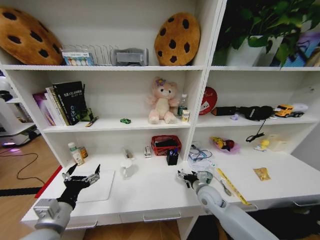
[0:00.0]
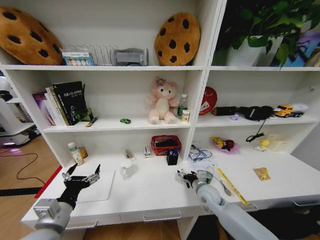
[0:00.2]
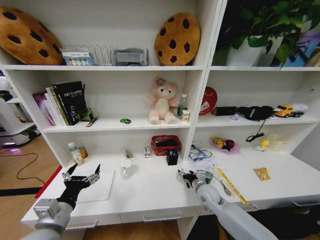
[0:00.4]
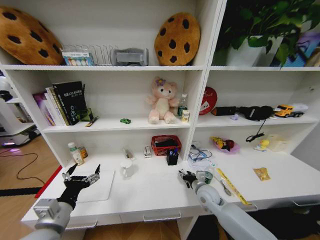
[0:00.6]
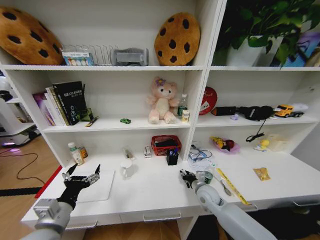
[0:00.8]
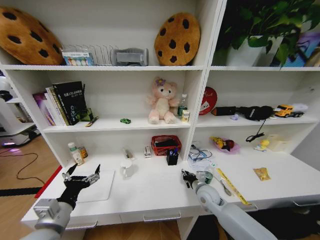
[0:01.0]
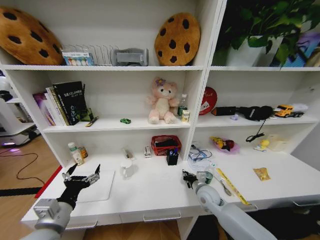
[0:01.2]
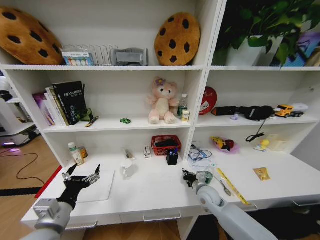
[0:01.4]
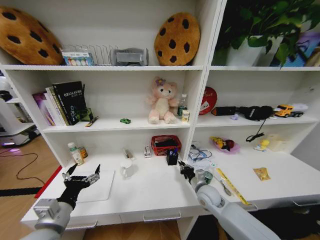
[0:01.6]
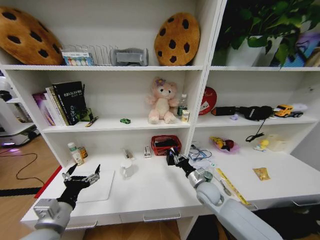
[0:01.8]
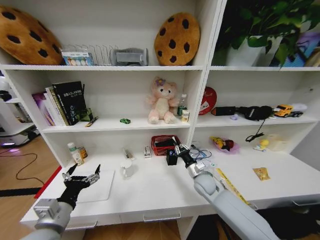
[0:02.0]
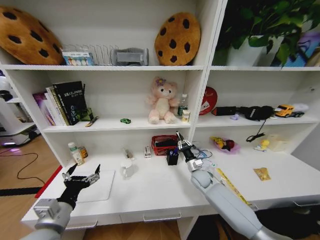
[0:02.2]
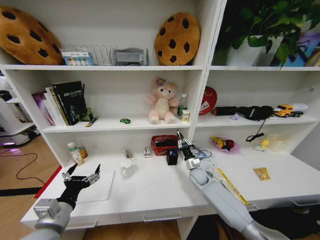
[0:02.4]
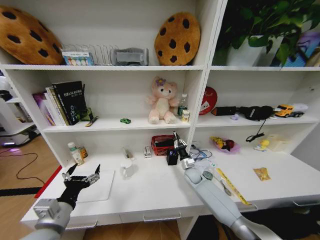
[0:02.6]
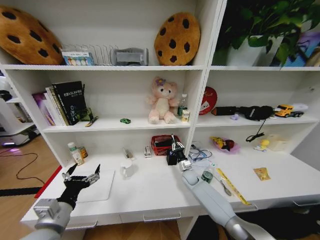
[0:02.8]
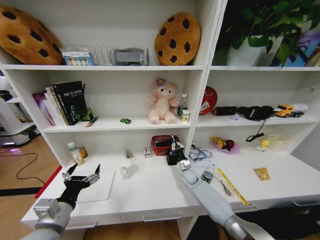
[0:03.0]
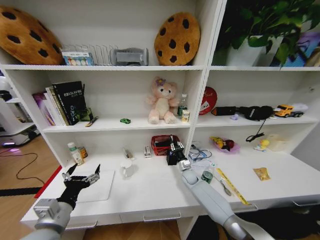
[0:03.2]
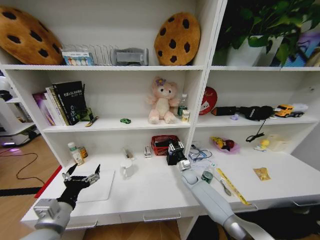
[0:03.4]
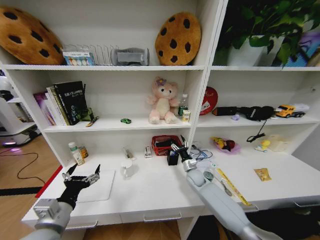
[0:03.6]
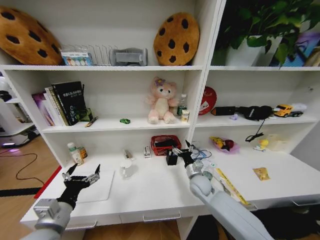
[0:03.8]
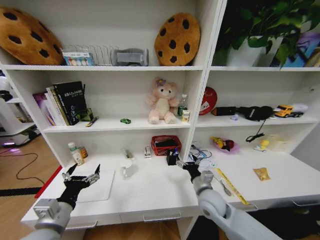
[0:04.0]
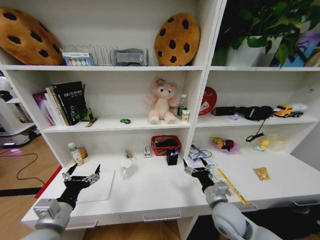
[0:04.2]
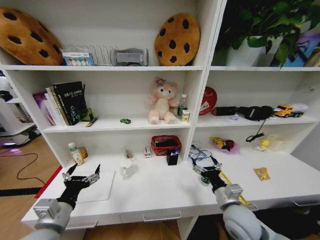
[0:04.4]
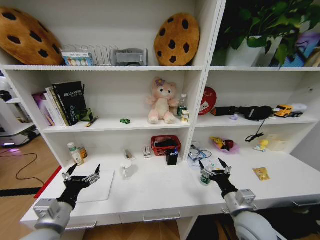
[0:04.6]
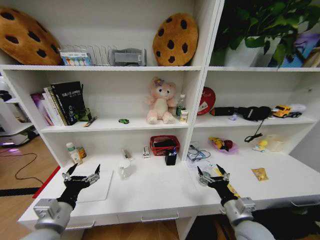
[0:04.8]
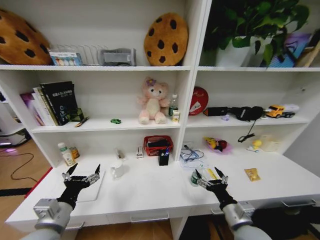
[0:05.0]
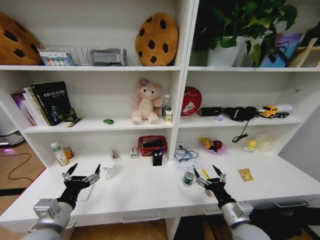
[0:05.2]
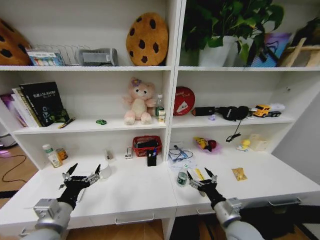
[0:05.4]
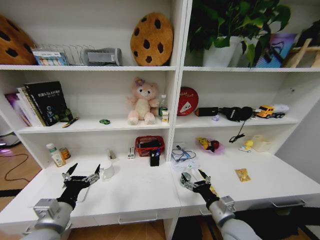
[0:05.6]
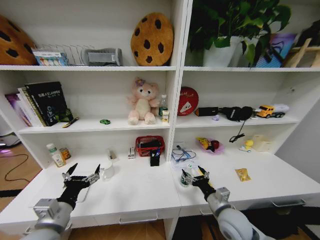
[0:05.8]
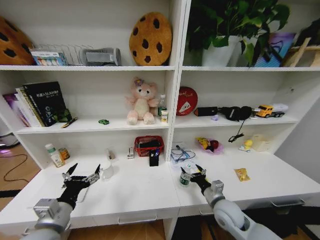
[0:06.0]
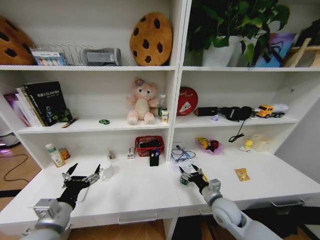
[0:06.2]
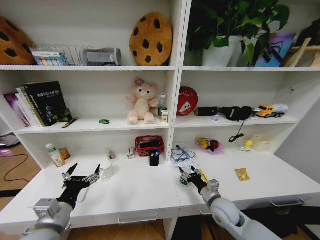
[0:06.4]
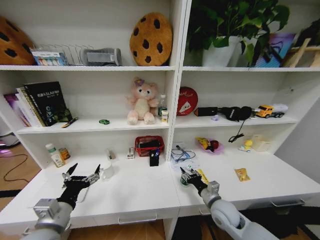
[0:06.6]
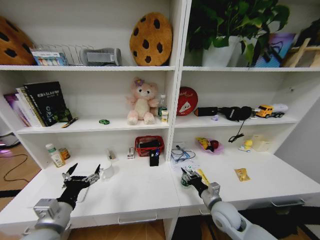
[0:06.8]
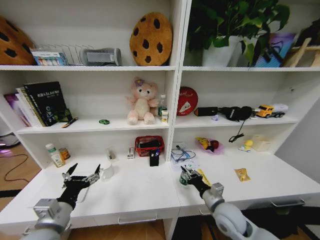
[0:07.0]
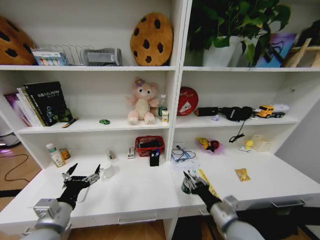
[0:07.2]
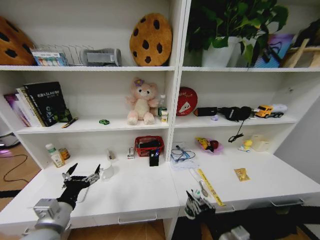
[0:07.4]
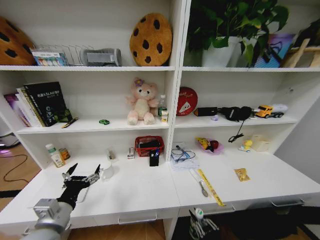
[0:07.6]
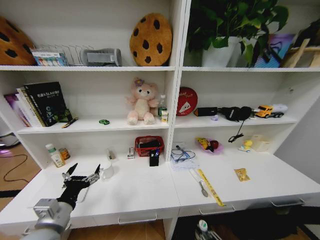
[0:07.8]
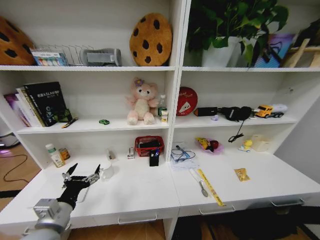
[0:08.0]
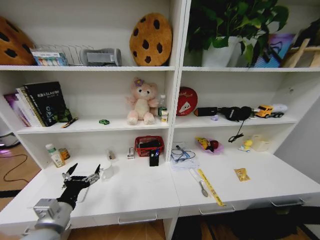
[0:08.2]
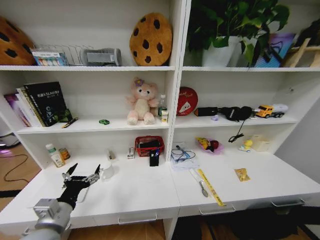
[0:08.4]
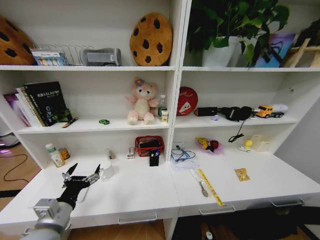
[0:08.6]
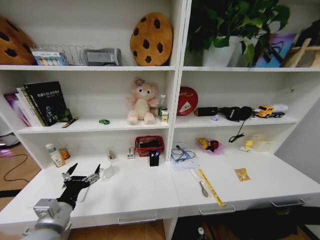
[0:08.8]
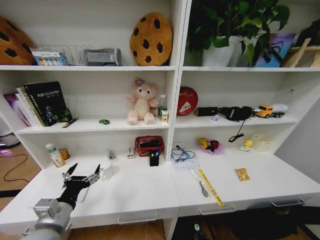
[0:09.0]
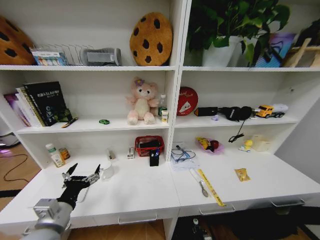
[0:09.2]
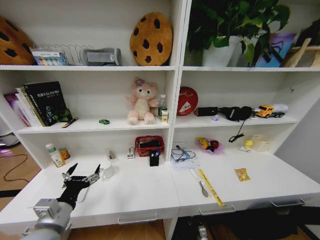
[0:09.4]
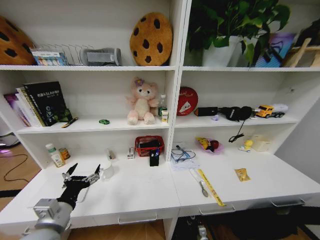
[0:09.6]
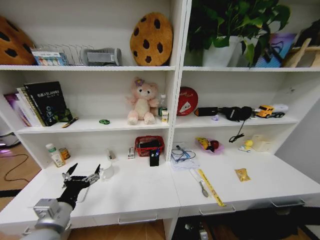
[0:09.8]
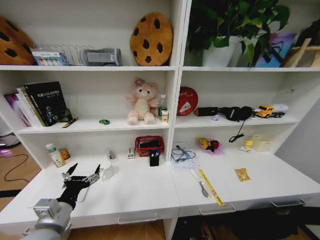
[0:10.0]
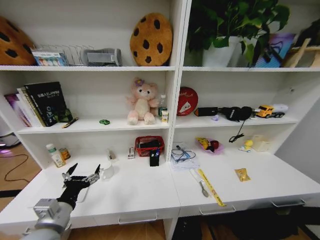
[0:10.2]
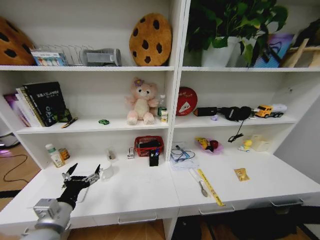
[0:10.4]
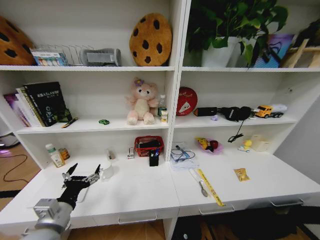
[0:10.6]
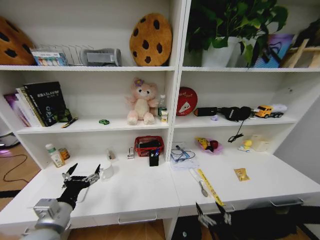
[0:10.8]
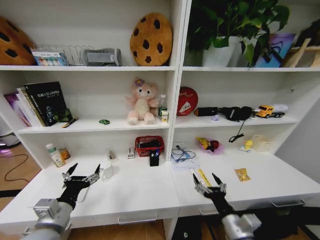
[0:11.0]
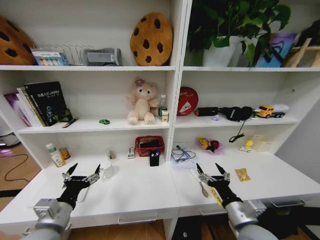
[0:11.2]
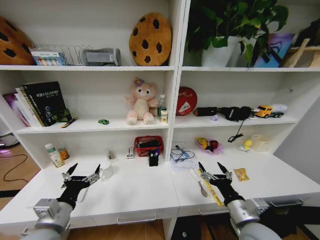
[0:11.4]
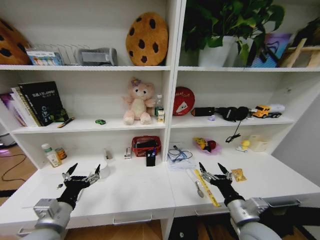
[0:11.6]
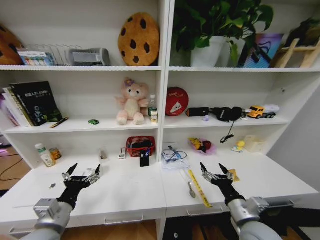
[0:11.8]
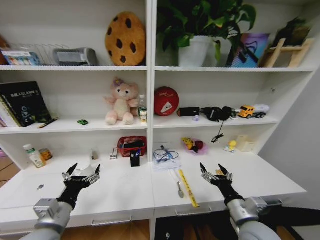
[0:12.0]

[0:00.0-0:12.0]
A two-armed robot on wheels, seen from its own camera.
Task of the whole recording: Organize the objects on the table.
0:00.0 to 0:01.6: The right gripper closes its fingers.
0:01.6 to 0:03.0: The right gripper heads forward and downward, covering roughly 15 cm.
0:03.0 to 0:04.4: The right gripper heads backward and upward, covering roughly 30 cm, and opens.
0:04.4 to 0:06.0: The right gripper changes place by approximately 5 cm.
0:06.0 to 0:07.6: The right gripper goes some 20 cm backward, and closes its fingers.
0:07.6 to 0:09.0: The right gripper is displaced downward by approximately 35 cm.
0:09.0 to 0:10.4: The right gripper is displaced upward and backward by some 20 cm, and opens up.
0:10.4 to 0:12.0: The right gripper is displaced upward and forward by about 30 cm.

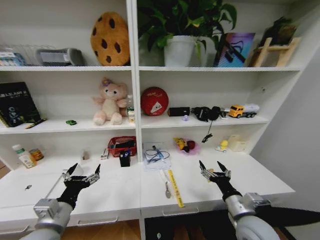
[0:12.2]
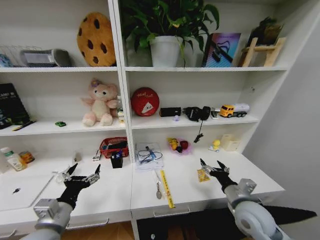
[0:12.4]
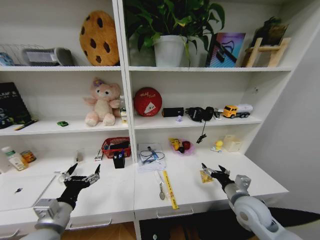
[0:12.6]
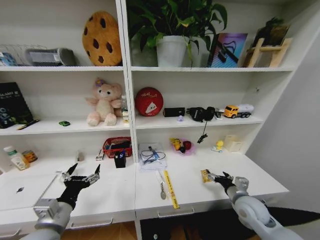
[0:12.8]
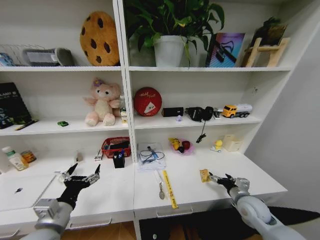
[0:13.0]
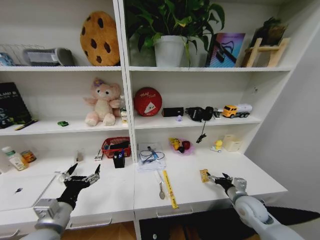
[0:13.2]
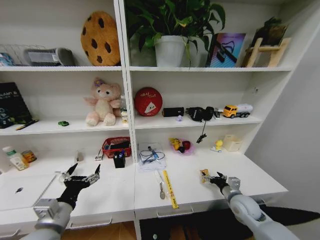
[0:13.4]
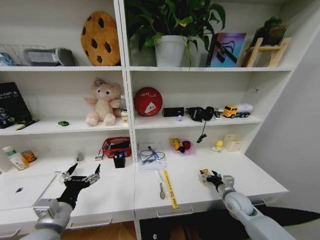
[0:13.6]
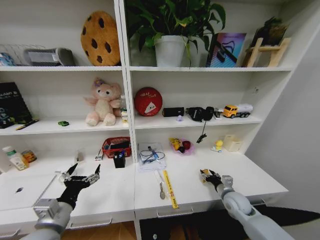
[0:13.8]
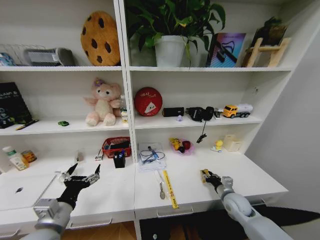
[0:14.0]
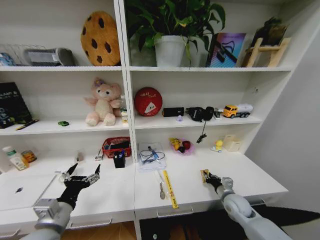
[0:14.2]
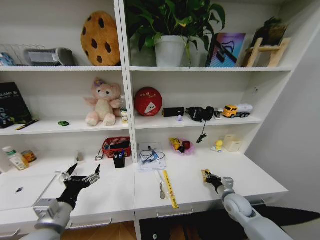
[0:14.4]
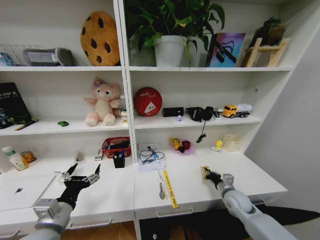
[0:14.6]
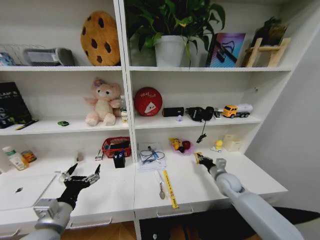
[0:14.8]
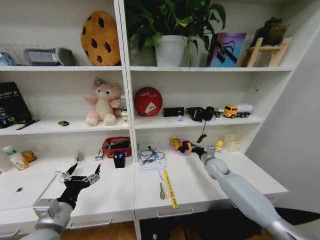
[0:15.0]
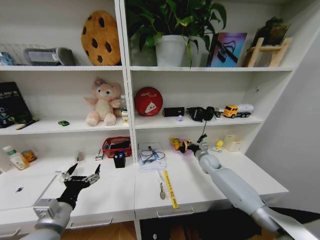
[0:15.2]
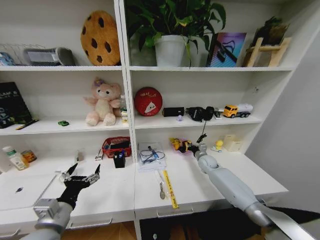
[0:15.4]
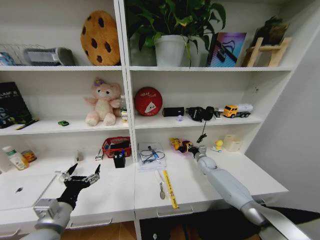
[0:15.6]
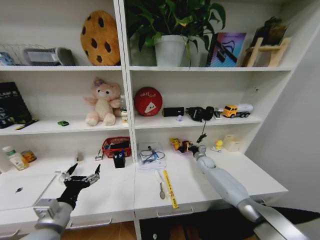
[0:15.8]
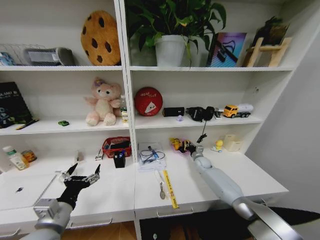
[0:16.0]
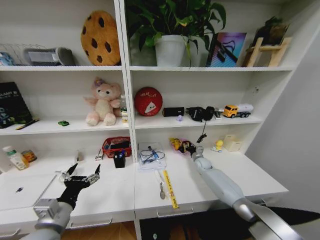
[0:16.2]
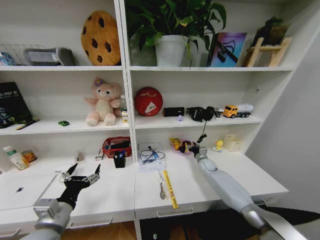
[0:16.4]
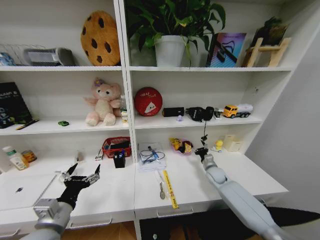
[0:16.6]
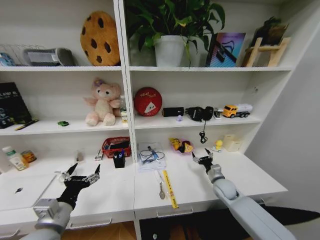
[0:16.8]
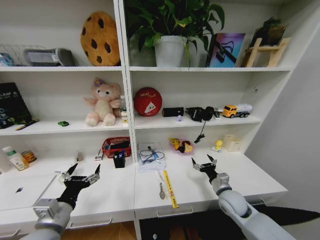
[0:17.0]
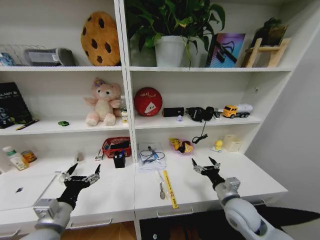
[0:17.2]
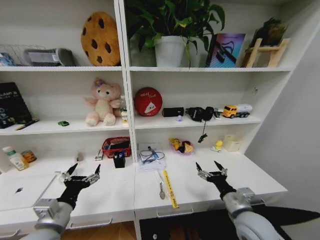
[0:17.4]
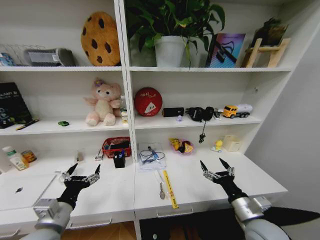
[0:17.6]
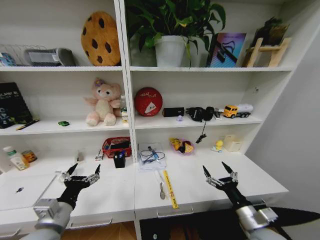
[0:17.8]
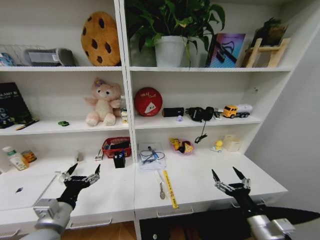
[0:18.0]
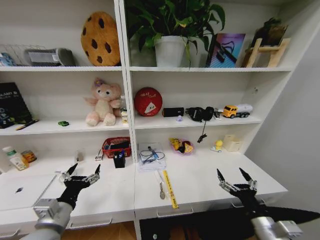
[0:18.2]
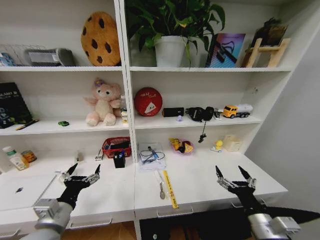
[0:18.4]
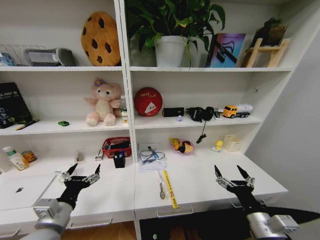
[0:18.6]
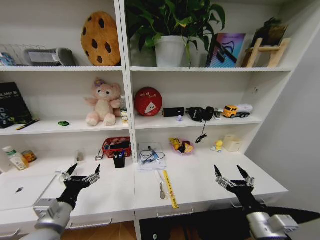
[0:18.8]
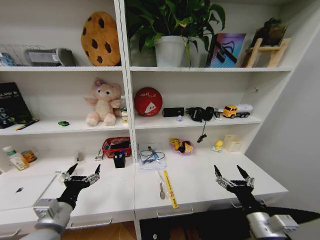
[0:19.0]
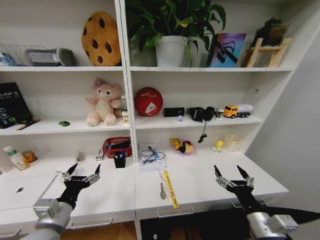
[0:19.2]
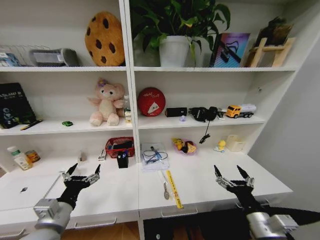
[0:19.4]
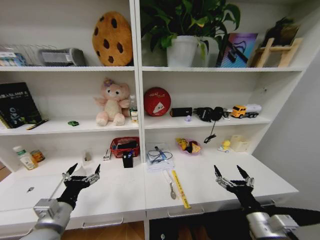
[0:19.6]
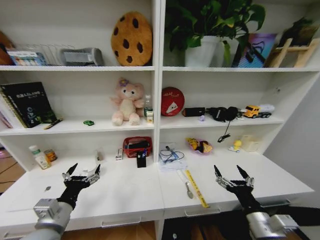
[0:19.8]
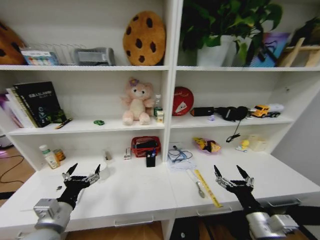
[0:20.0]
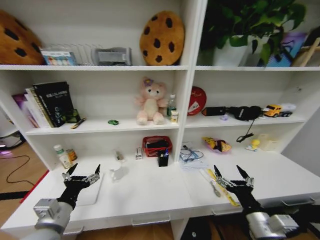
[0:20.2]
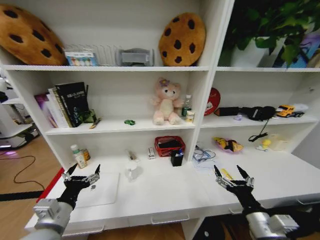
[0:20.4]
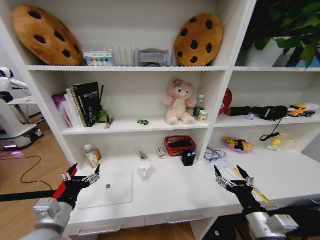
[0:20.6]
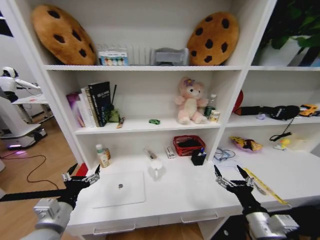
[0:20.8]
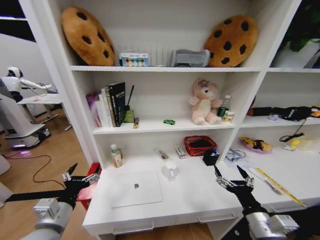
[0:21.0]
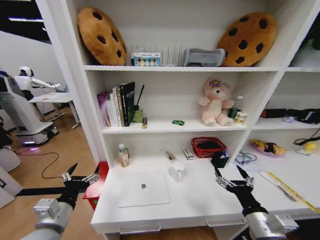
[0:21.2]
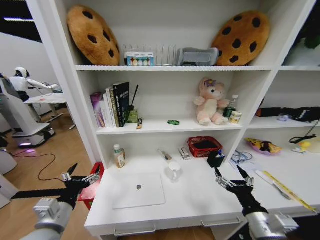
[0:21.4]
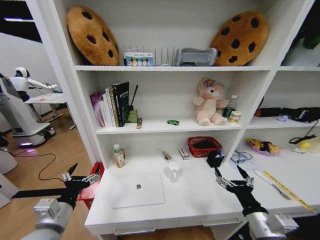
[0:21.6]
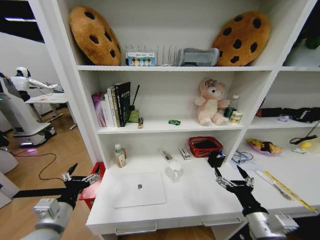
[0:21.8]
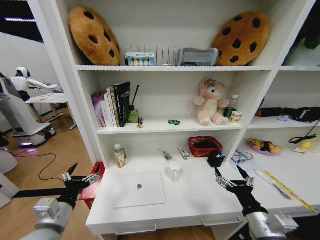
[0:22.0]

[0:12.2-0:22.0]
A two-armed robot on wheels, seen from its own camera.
Task of the whole recording: Organize the objects on the table.
0:12.2 to 0:13.6: The right gripper travels forward, downward and to the right by some 15 cm.
0:13.6 to 0:15.0: The right gripper shifts approximately 15 cm forward, and closes its fingers.
0:15.0 to 0:16.4: The right gripper heads downward and forward, covering approximately 10 cm, and opens.
0:16.4 to 0:17.8: The right gripper shifts approximately 35 cm backward, and opens up.
0:17.8 to 0:19.2: The right gripper moves roughly 5 cm.
